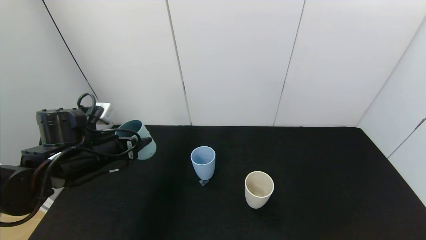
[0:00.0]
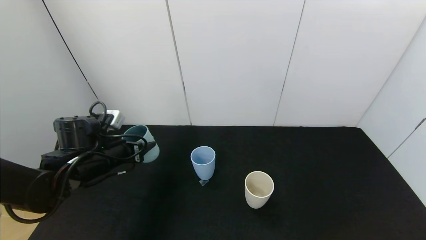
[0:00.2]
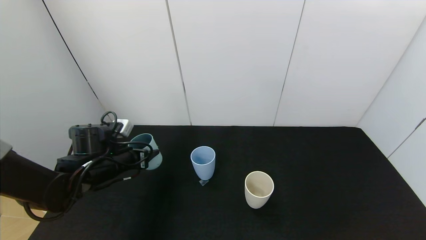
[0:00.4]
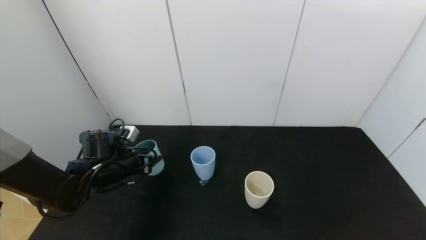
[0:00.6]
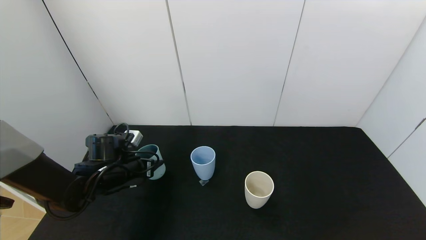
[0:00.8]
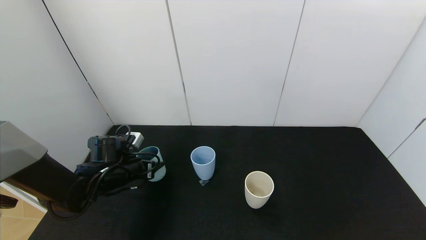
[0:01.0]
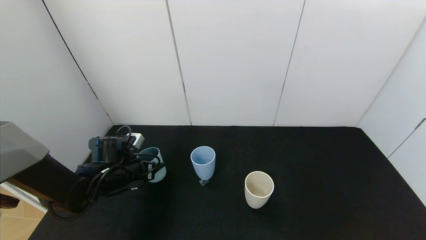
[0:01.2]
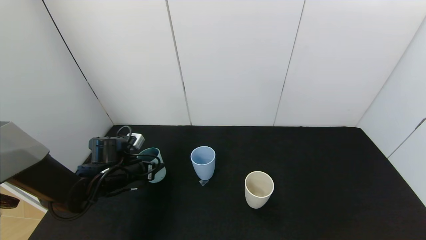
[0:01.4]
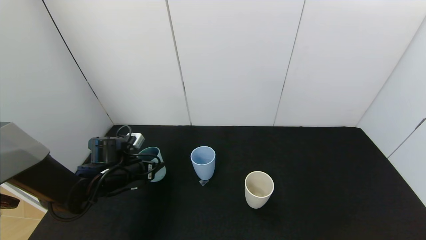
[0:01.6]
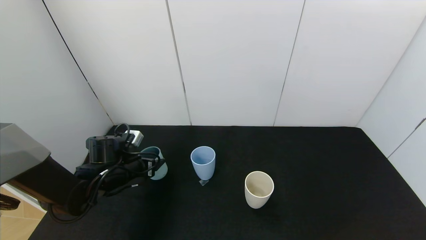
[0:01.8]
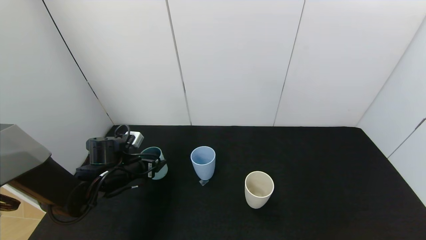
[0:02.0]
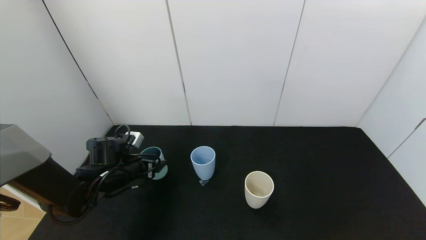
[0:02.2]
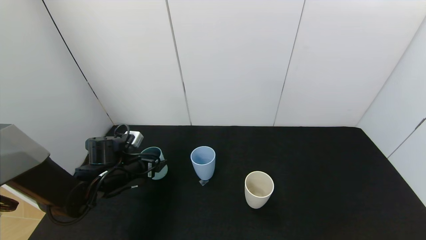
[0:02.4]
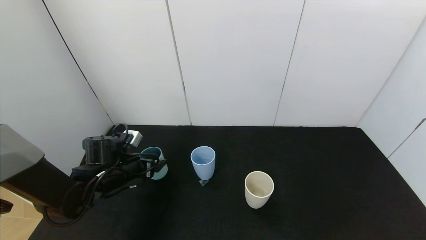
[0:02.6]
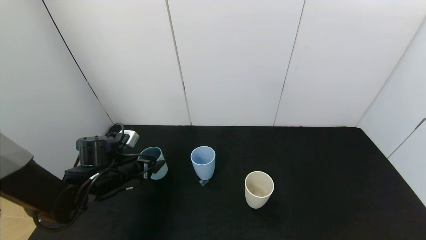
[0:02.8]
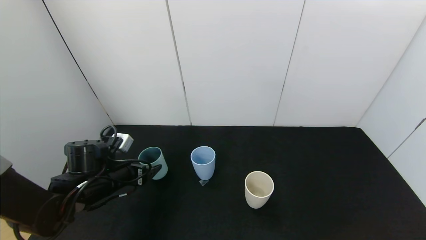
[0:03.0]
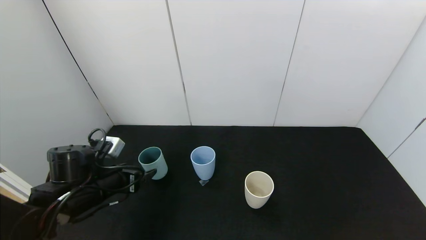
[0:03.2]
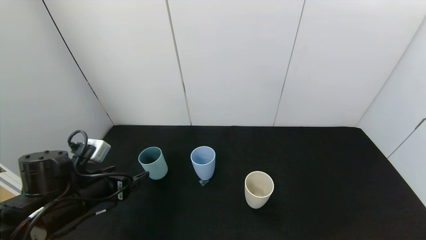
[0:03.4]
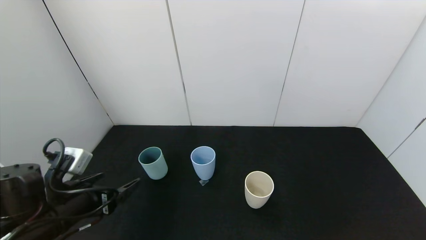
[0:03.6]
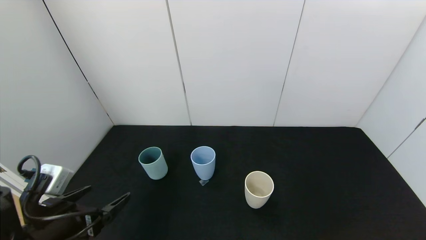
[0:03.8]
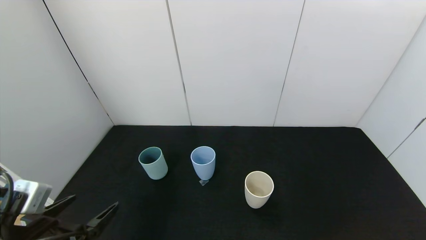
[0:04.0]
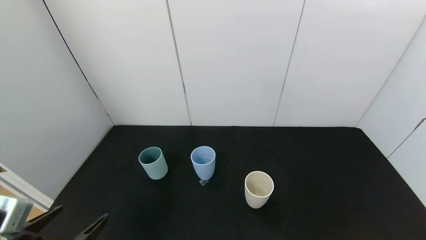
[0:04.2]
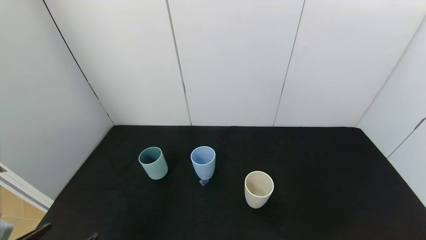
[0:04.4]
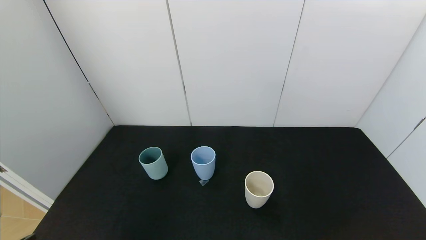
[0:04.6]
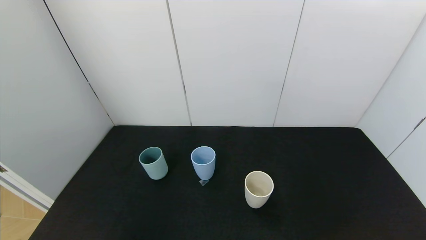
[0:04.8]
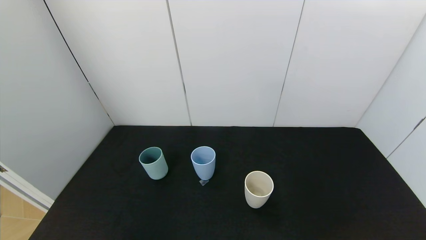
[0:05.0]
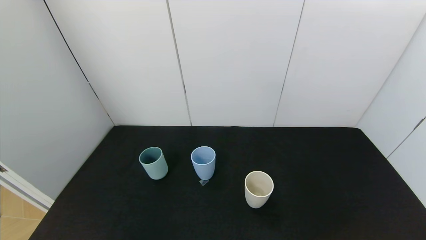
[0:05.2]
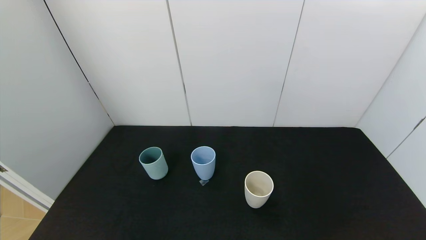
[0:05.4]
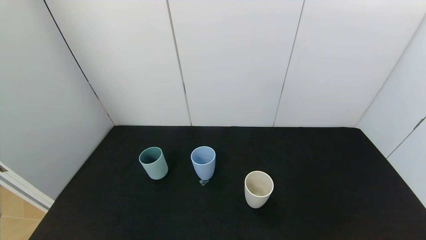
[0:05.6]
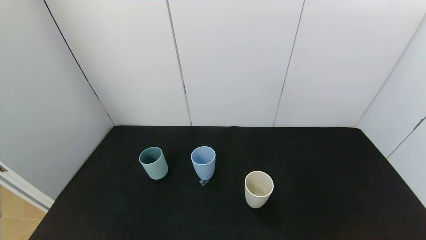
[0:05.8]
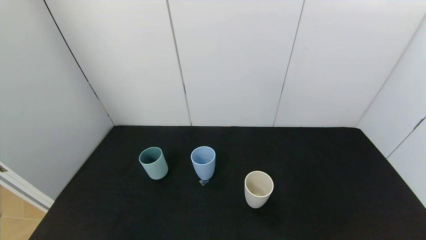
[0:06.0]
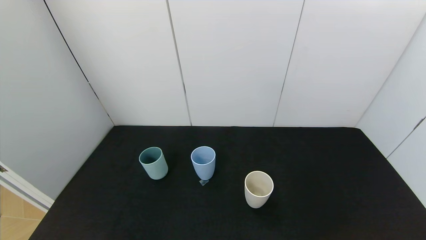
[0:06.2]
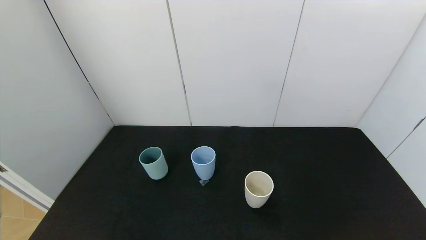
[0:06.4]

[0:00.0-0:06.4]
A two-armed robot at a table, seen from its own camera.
Task of the whole recording: use the gripper to pour the water into the other two cups on black table.
Step, 0:00.0 to 0:03.6: Place the green cup with the left gripper.
0:00.0 to 0:01.6: The left gripper moves downward, approximately 10 cm.
0:01.6 to 0:03.2: The left gripper travels backward by some 5 cm, and opens.
0:03.2 to 0:04.8: The left gripper heads backward, covering roughly 25 cm.

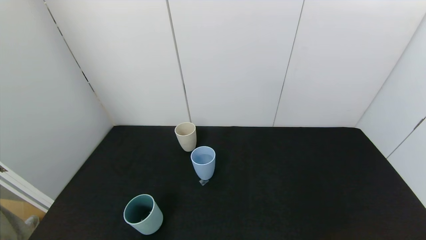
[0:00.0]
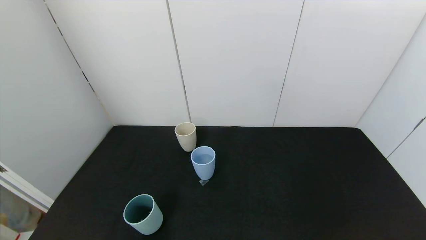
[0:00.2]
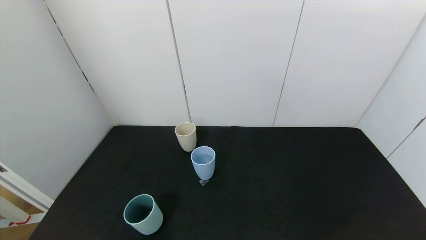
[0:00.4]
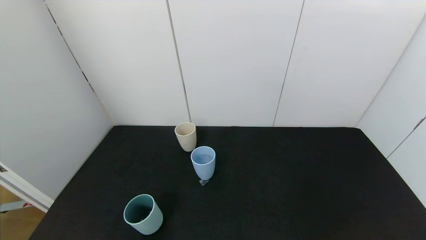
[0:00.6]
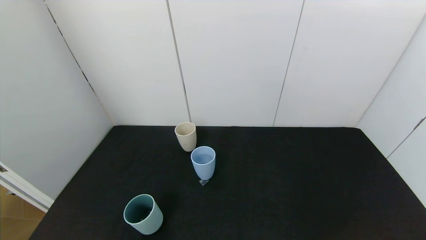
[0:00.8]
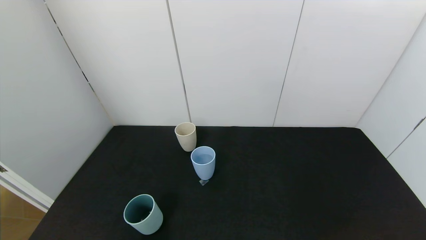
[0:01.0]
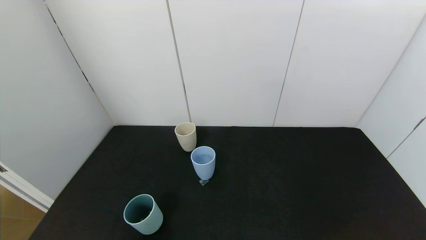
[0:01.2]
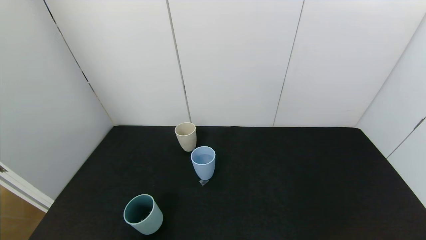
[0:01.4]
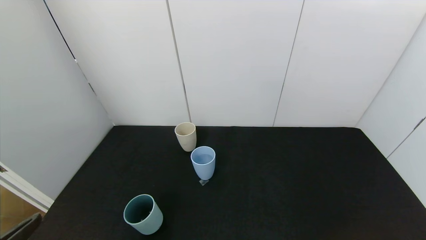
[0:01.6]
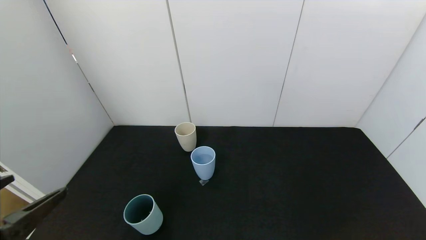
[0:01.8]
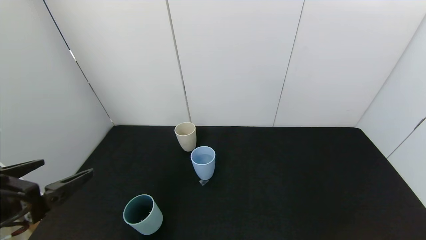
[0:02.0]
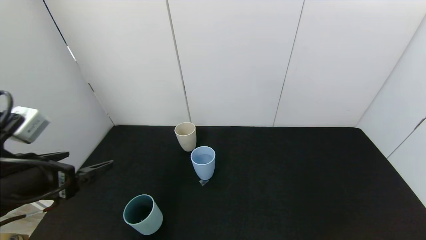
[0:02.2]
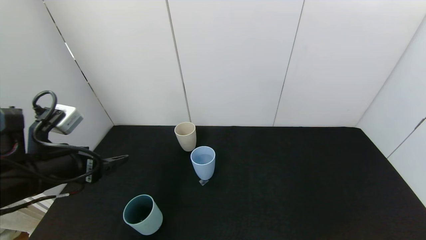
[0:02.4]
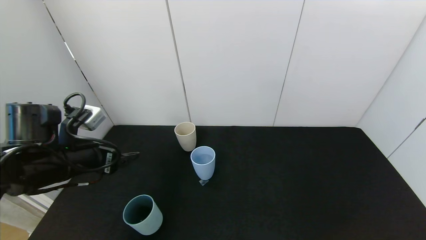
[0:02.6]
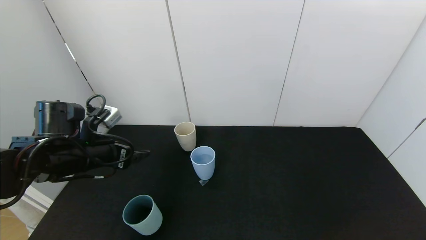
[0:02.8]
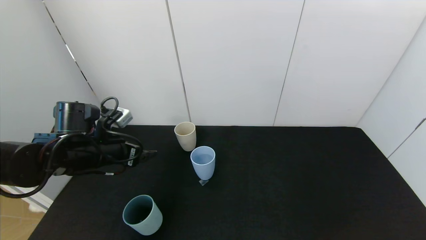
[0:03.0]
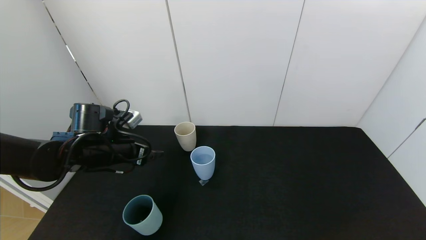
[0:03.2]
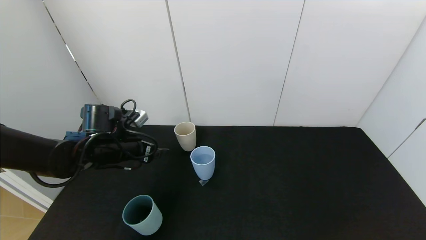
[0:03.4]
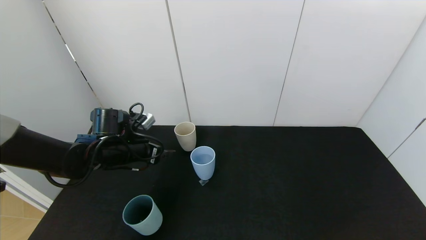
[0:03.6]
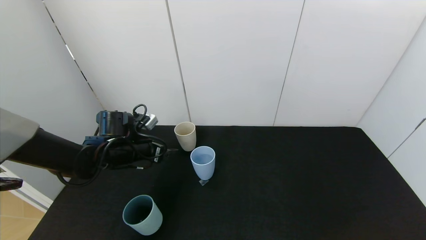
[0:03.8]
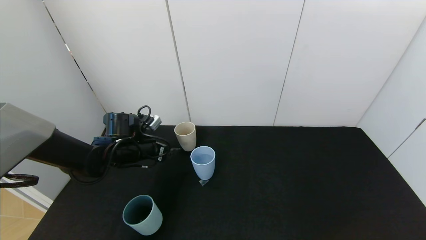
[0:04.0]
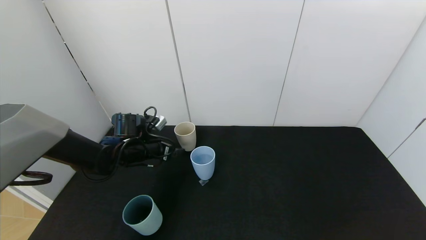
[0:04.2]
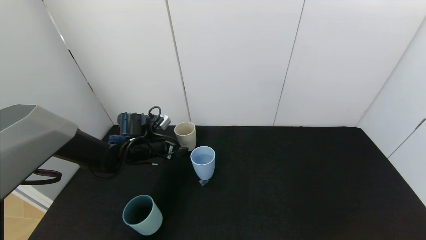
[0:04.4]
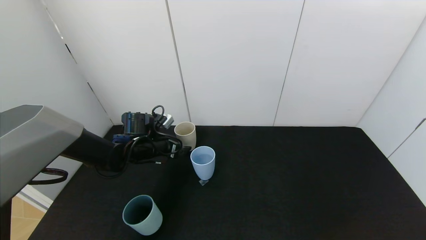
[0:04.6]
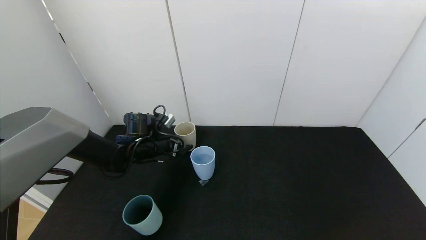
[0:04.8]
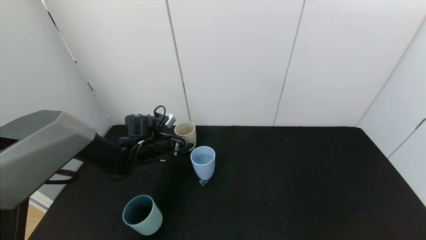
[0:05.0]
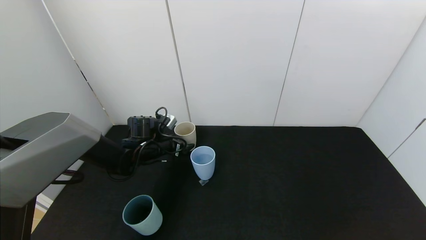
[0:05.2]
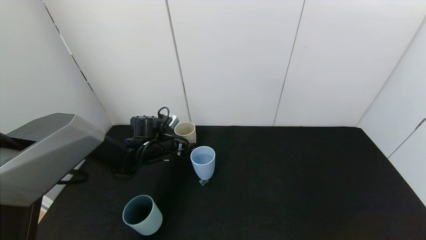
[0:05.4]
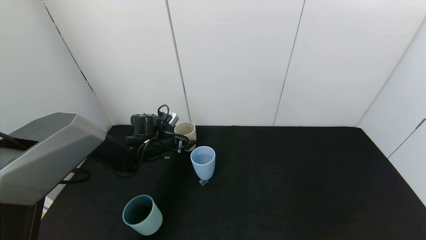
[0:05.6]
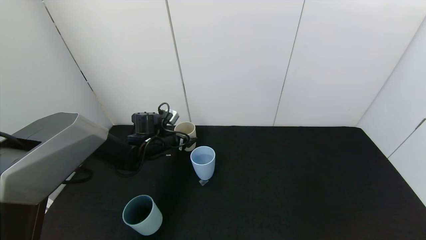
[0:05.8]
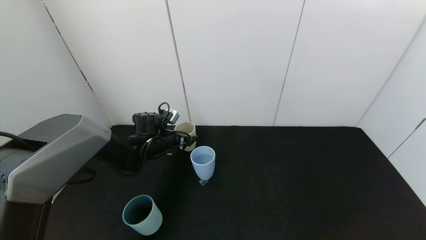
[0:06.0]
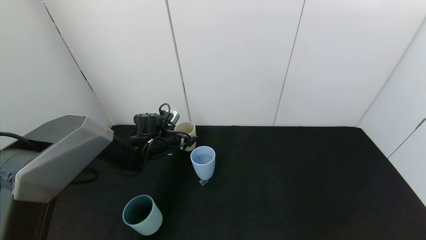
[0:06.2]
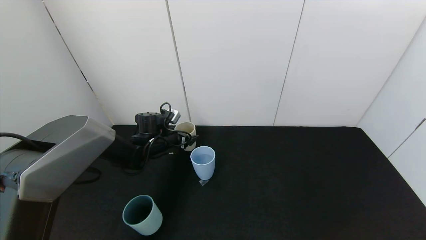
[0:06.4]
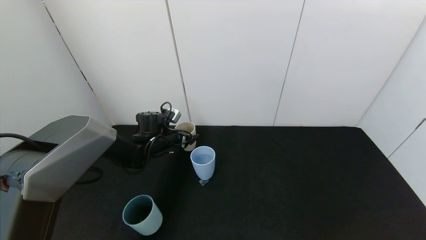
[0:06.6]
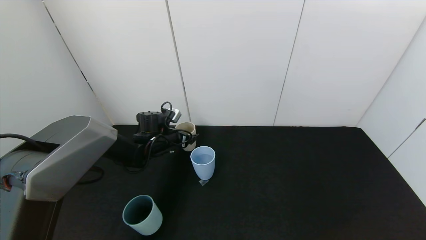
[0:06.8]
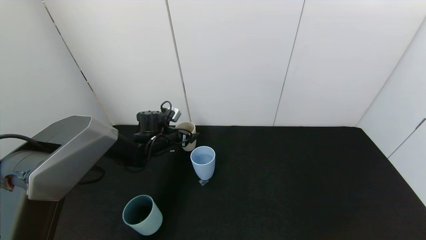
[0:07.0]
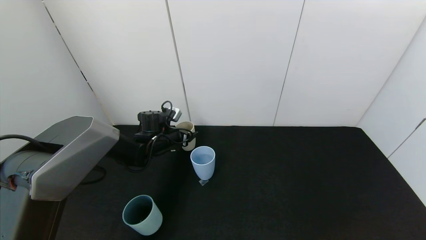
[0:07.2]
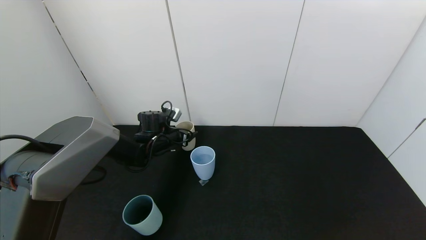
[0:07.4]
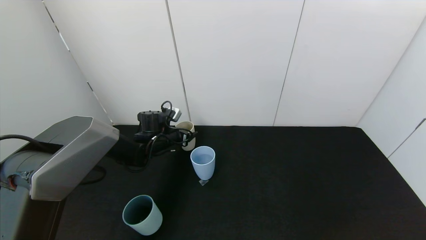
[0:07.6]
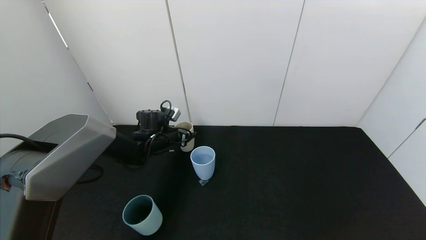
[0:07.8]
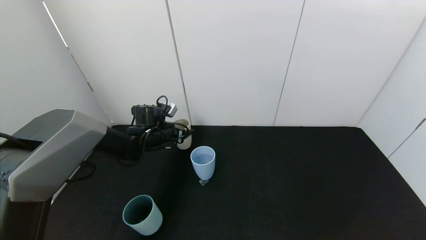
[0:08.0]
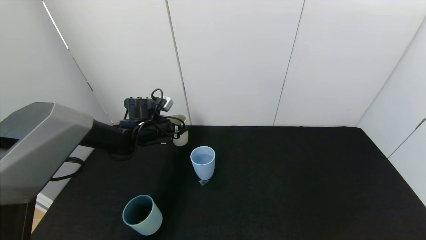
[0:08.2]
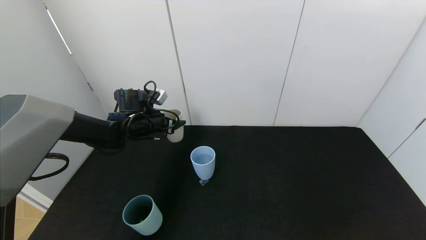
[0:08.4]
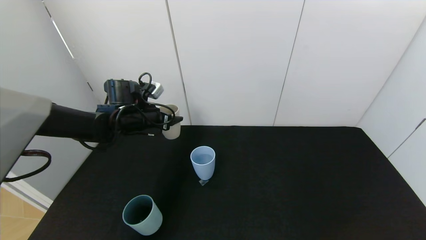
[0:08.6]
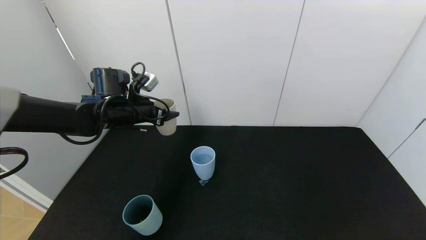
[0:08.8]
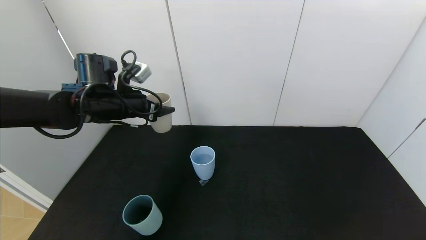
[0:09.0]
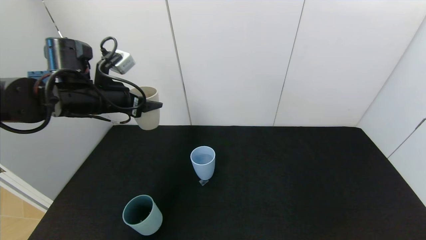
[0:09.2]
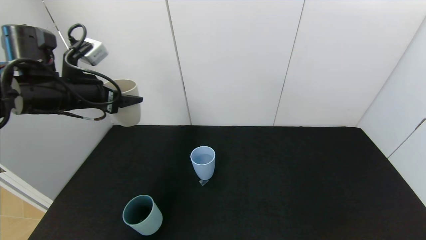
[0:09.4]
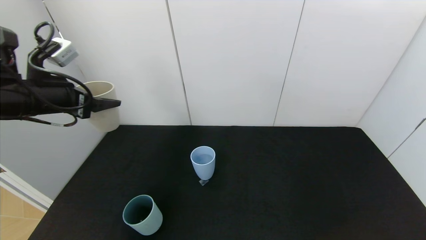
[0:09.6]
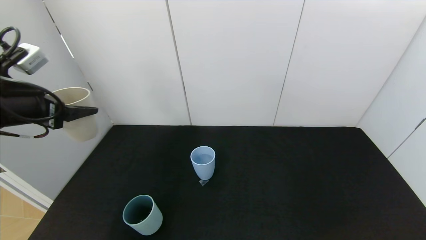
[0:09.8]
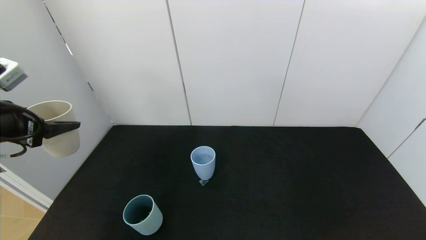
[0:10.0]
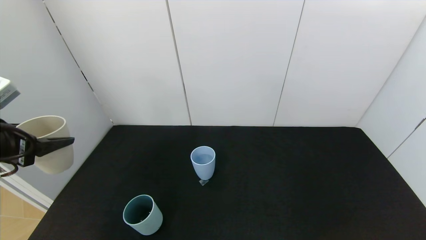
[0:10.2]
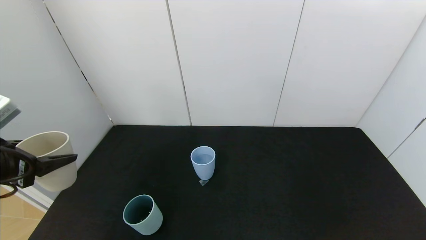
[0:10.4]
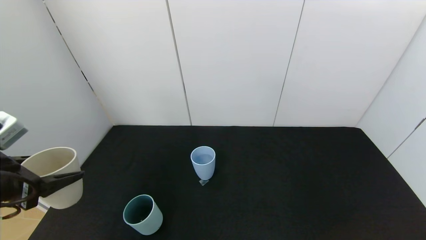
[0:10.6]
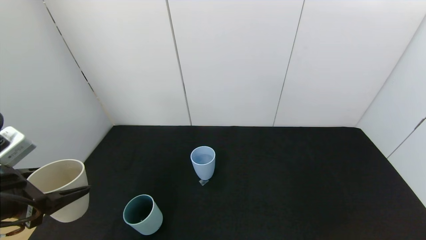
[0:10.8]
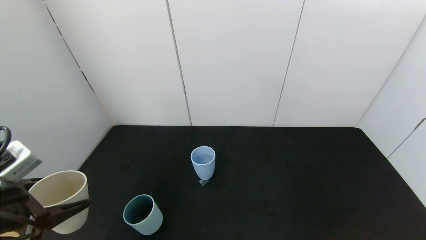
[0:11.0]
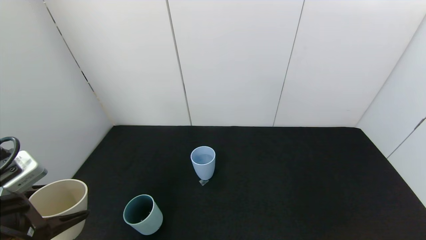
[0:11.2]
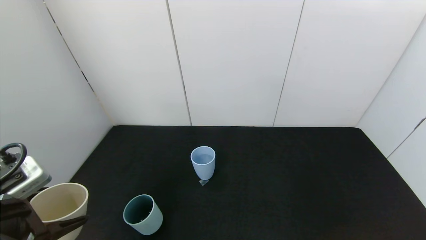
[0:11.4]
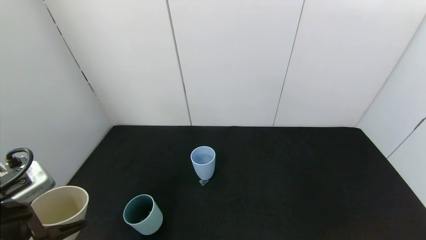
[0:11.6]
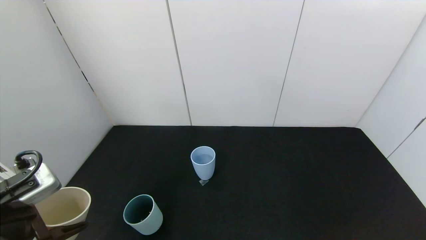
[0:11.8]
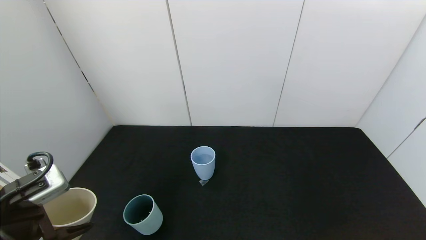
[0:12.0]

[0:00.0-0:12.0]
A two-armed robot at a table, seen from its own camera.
Task of the whole recording: use the gripper to pour the water into the other two cups on black table.
Step, 0:00.0 to 0:08.2: Pick up the gray plastic cup with left gripper.
0:00.0 to 0:01.6: The left gripper is displaced upward and forward by approximately 15 cm.
0:01.6 to 0:03.0: The left gripper travels forward by about 30 cm.
0:03.0 to 0:04.4: The left gripper moves forward and downward, about 10 cm.
0:04.4 to 0:06.0: The left gripper moves some 5 cm.
0:06.0 to 0:07.6: The left gripper closes up.
0:07.6 to 0:09.0: The left gripper moves upward and backward, some 20 cm.
0:09.0 to 0:10.4: The left gripper goes approximately 25 cm backward and to the left.
0:10.4 to 0:12.0: The left gripper goes about 5 cm downward.
